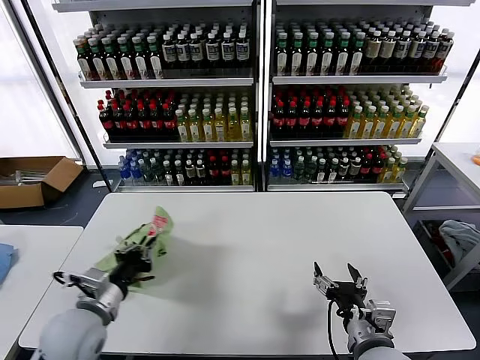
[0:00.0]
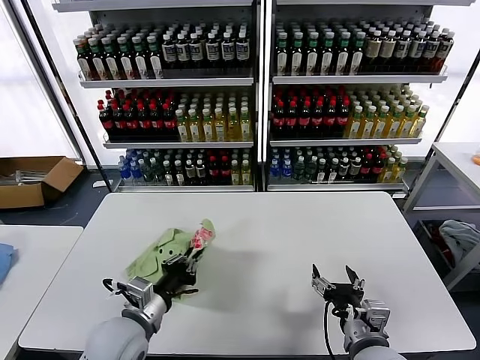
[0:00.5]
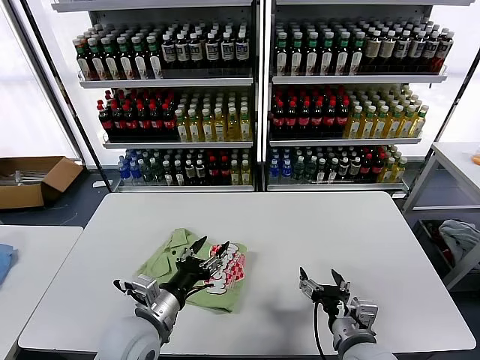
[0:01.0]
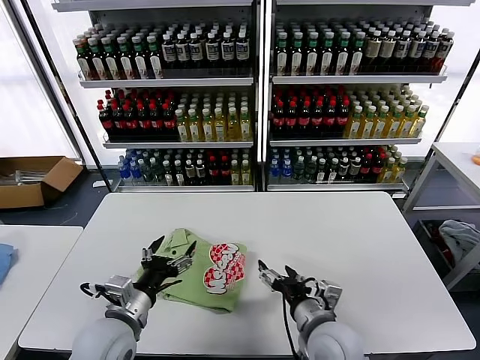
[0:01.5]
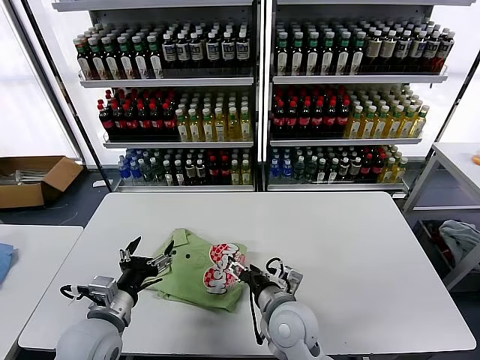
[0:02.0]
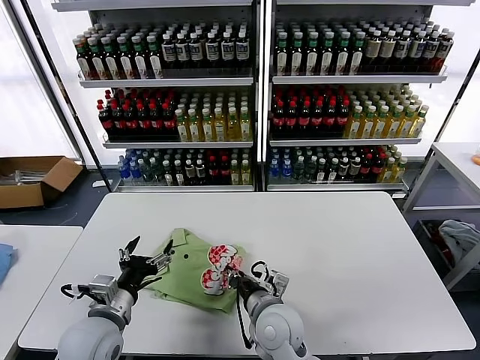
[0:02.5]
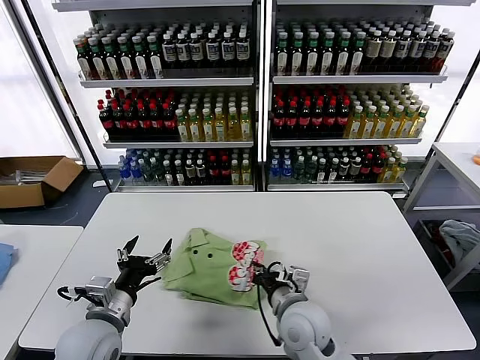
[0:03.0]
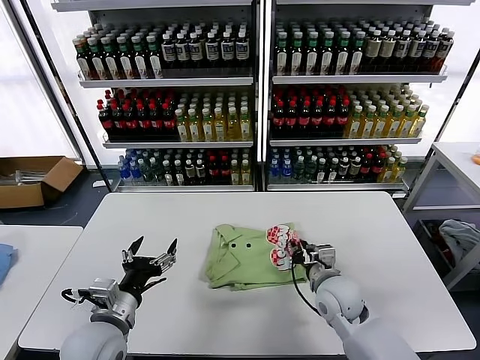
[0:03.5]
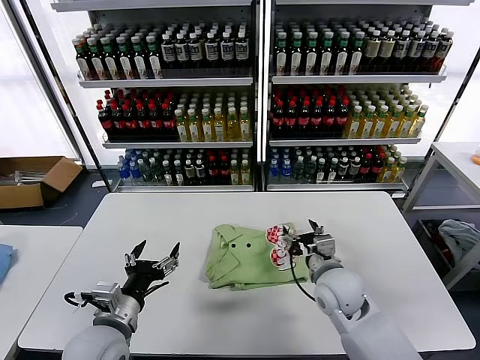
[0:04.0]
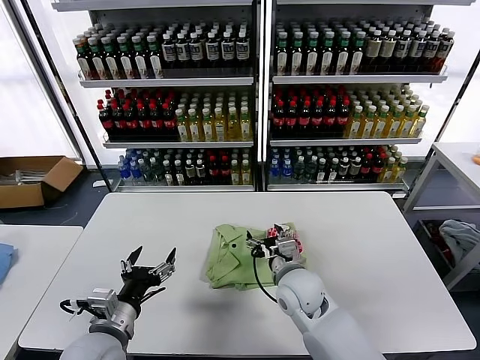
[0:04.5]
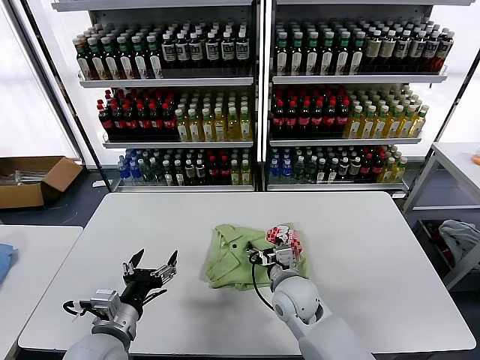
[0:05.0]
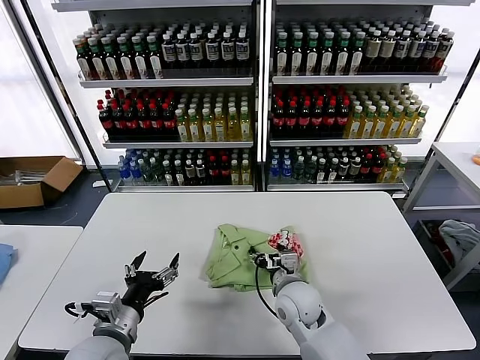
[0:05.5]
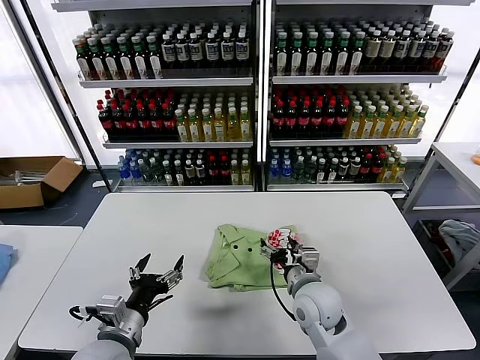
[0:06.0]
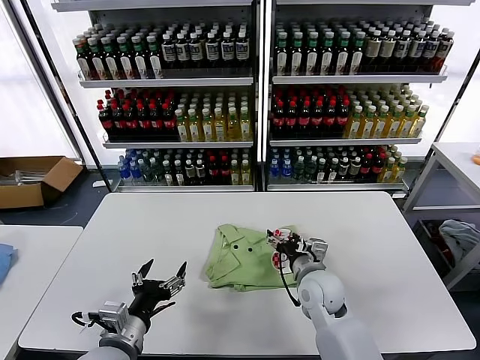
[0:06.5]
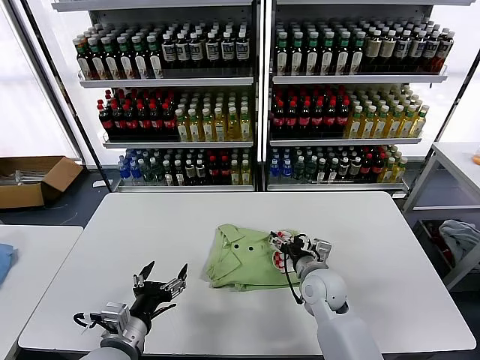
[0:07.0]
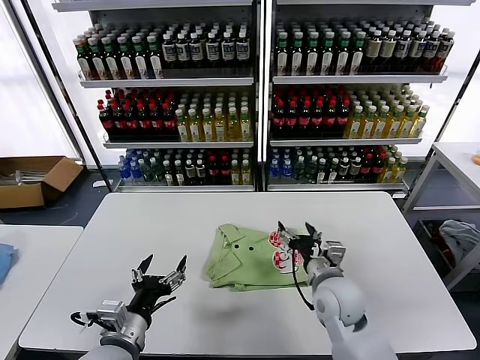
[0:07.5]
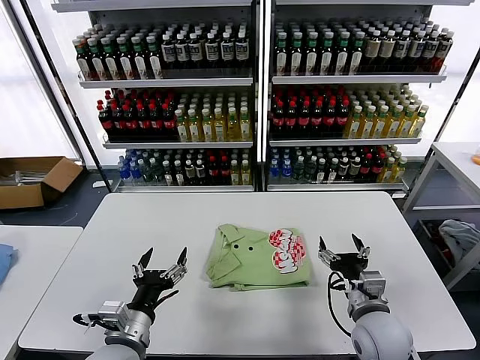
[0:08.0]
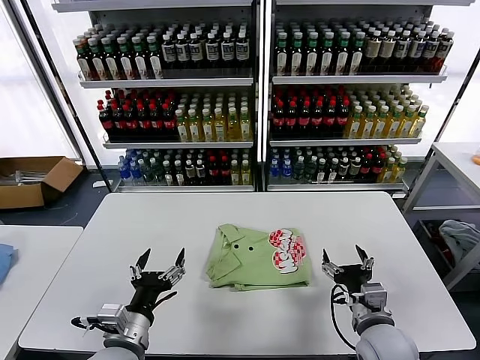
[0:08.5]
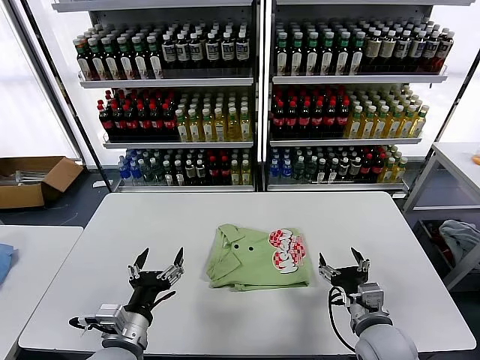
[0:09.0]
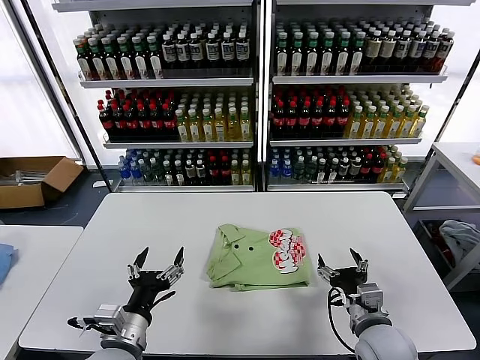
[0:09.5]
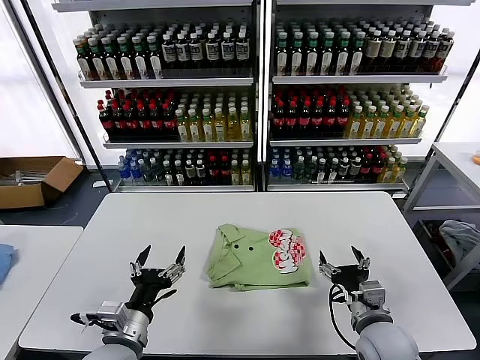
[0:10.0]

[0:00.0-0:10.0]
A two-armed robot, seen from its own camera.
Task of the whole recording: fold and organize the clothes.
Step, 0:01.0 to 0:07.0: Drag the clothes to the center of the table.
0:00.0 to 0:02.0: The left gripper opens. The right gripper moves to the left and forward, approximately 15 cm.
0:02.0 to 0:04.0: The right gripper goes roughly 10 cm to the right and forward, and closes, then reopens.
0:04.0 to 0:06.0: The right gripper travels to the left by roughly 5 cm.
0:06.0 to 0:08.0: The right gripper moves to the right and backward, approximately 10 cm.
0:08.0 to 0:10.0: The grippers make only small movements.

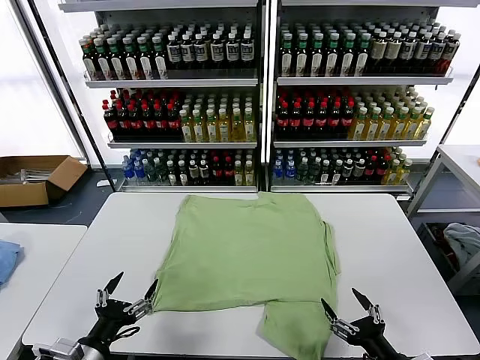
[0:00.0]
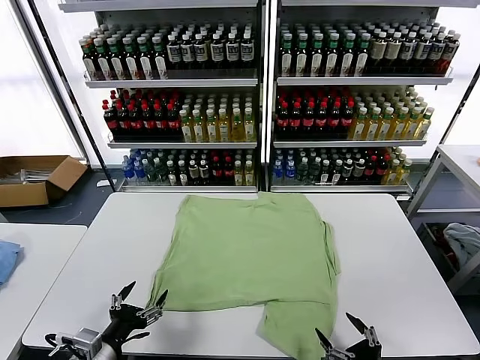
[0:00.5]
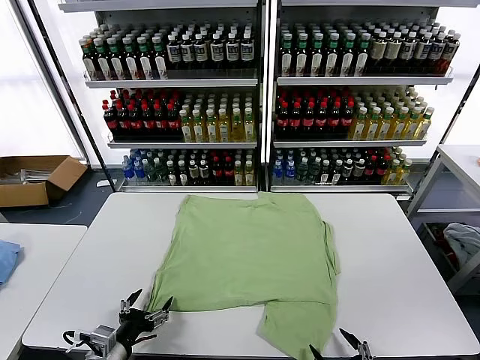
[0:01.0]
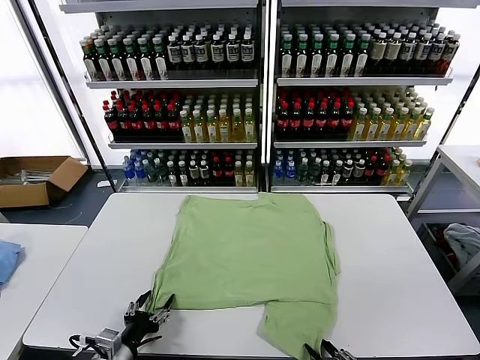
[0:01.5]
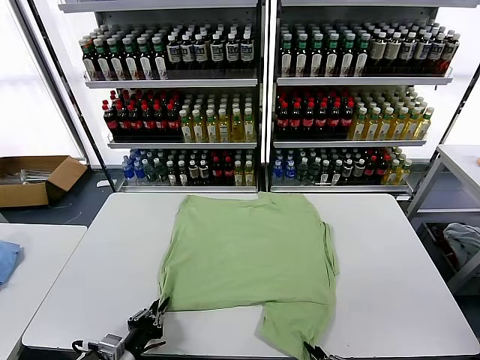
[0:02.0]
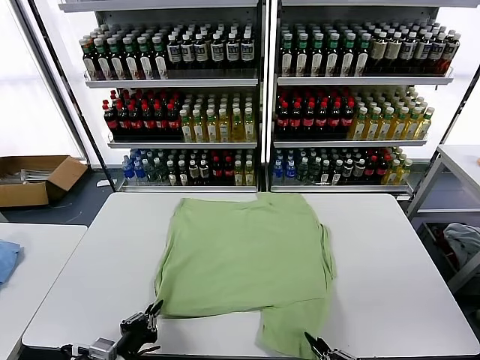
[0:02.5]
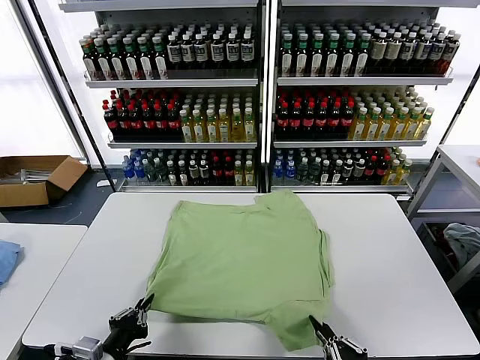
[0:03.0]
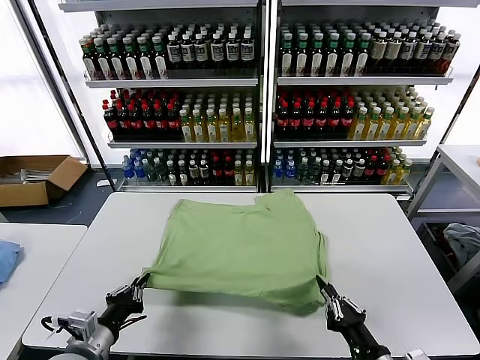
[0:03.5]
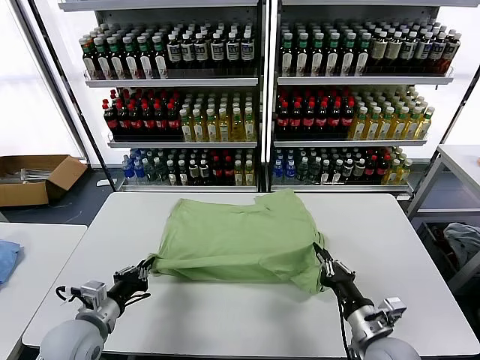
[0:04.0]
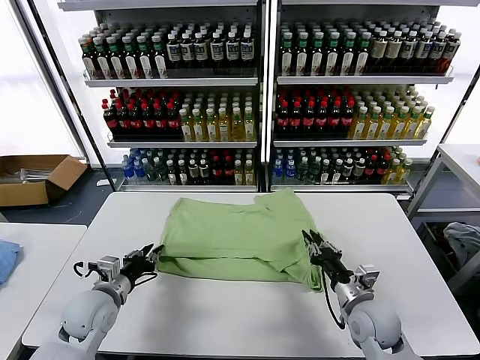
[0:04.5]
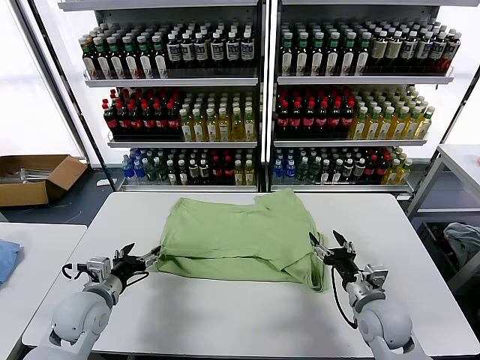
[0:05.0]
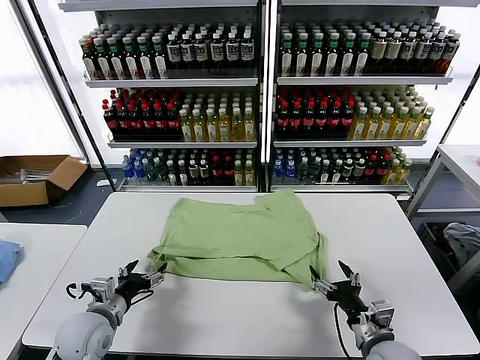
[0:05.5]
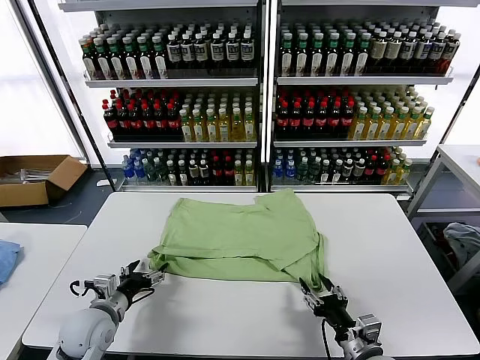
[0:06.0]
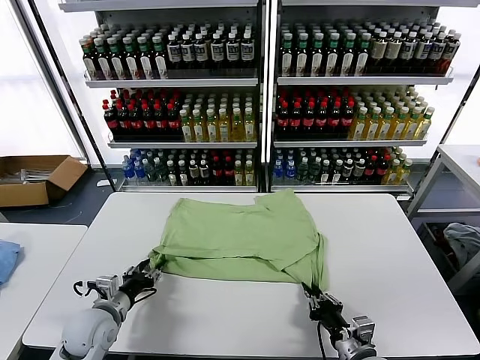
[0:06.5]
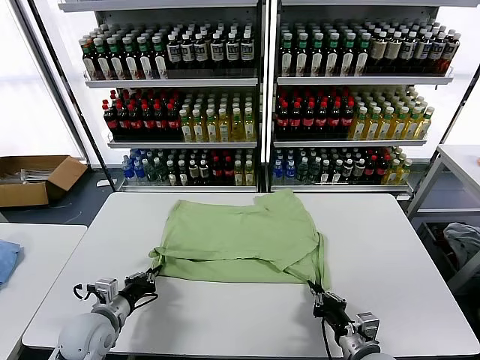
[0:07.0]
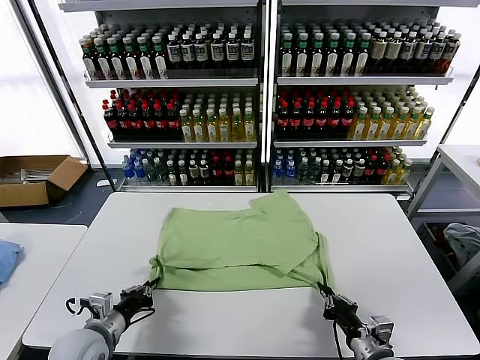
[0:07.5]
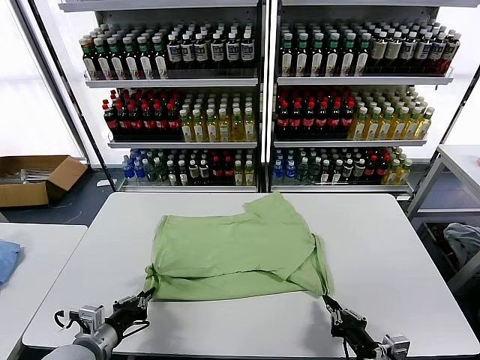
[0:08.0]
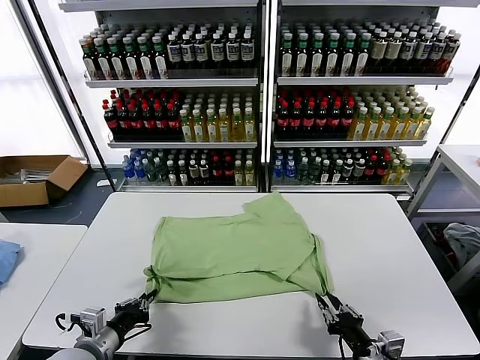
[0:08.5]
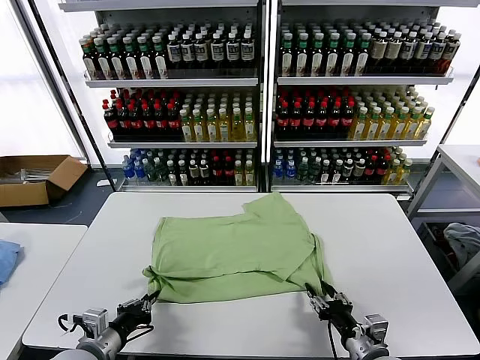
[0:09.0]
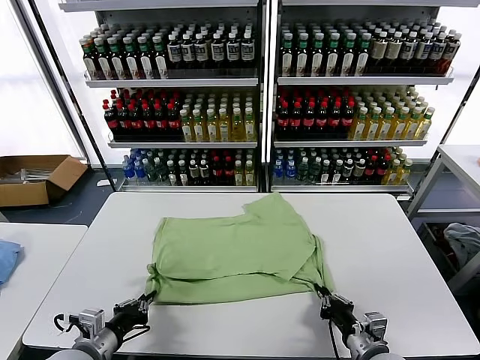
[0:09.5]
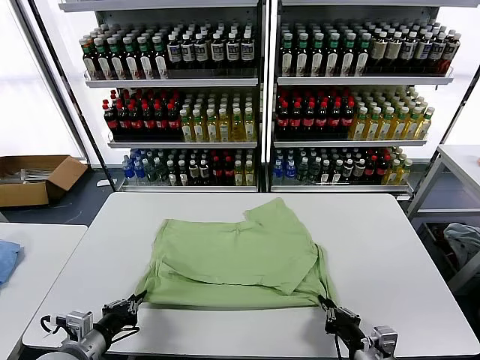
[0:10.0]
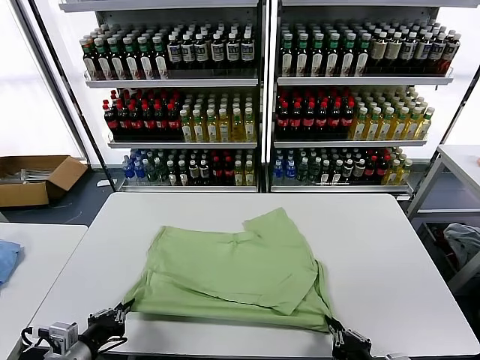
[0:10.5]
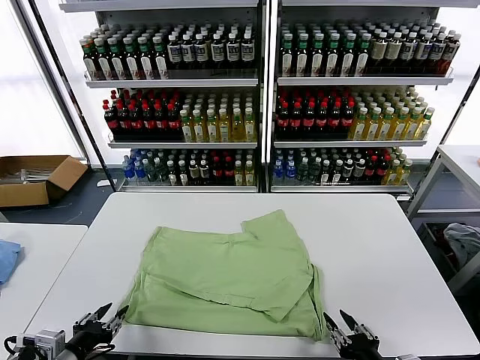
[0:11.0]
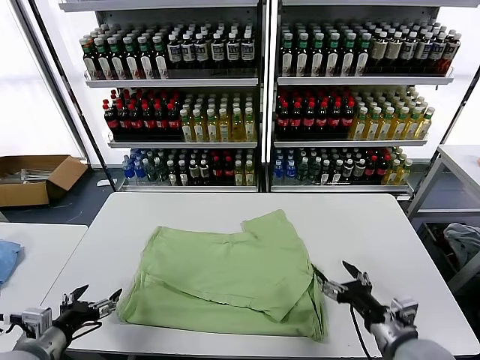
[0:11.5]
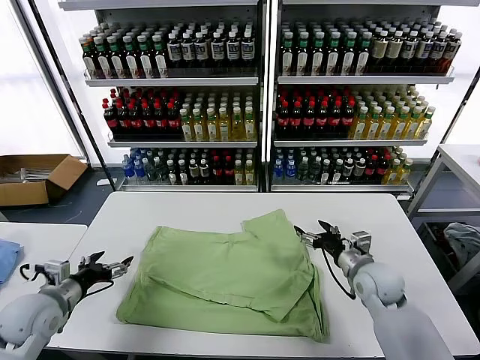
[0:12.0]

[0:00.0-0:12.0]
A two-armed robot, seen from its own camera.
Task of the whole recording: fold and organize the clothes.
Step, 0:00.0 to 0:02.0: use both grippers simultaneously to clamp the lower edge of the clothing fabric.
Step, 0:02.5 to 0:04.5: use both grippers to drag the lower edge of the fabric forward and fold it over the upper edge.
Step, 0:05.0 to 0:11.0: Drag the clothes downward with both gripper.
0:02.0 to 0:04.0: The left gripper heads forward and upward, covering about 10 cm, while the right gripper shifts some 15 cm forward.
0:04.0 to 0:06.0: The left gripper moves some 5 cm, and opens its fingers. The right gripper travels forward and back again, roughly 10 cm each way, and opens its fingers.
0:06.0 to 0:08.0: The left gripper goes roughly 10 cm backward, and closes. The right gripper ends up some 5 cm from where it was, and closes up.
0:08.0 to 0:10.0: The right gripper opens and closes again.
0:10.0 to 0:12.0: The right gripper goes roughly 20 cm forward, and opens up. Meanwhile the left gripper is displaced forward and to the left by about 15 cm, and opens.

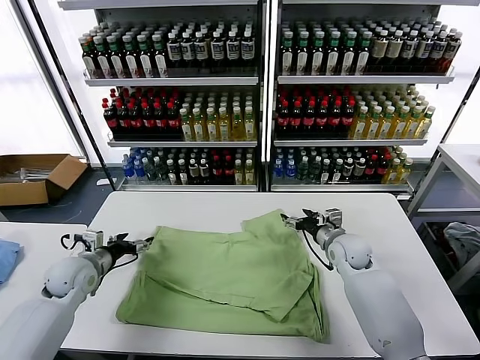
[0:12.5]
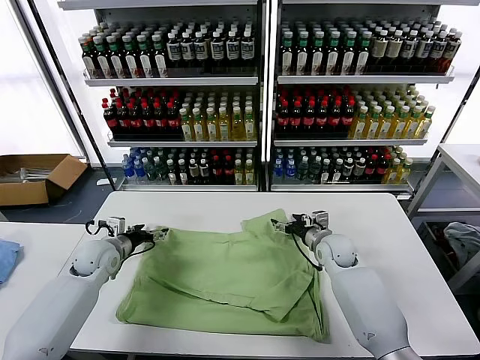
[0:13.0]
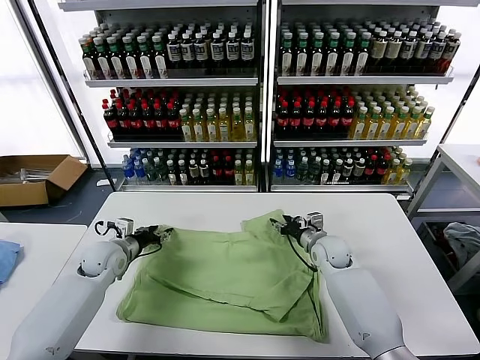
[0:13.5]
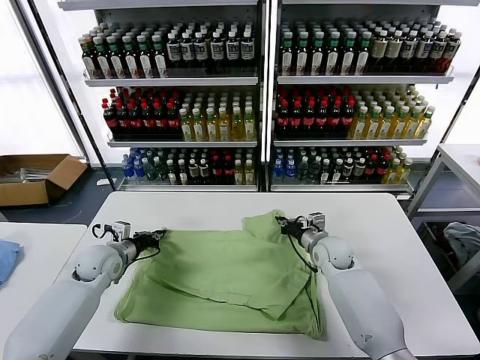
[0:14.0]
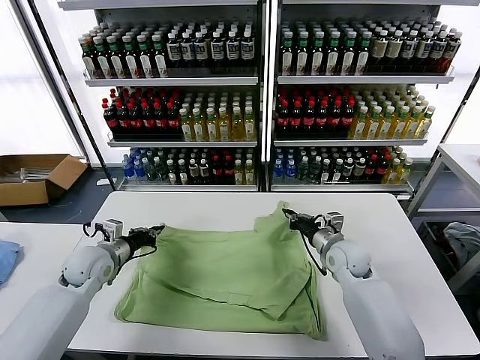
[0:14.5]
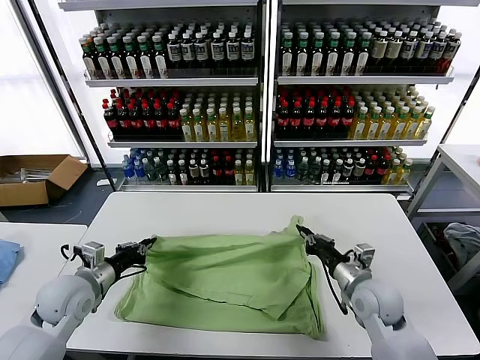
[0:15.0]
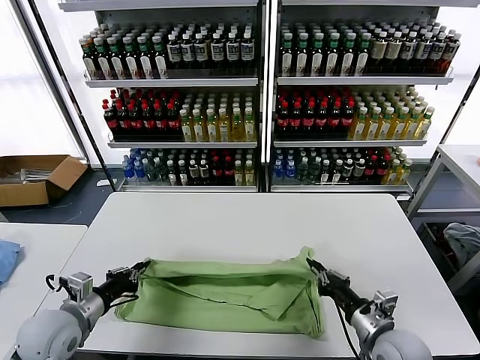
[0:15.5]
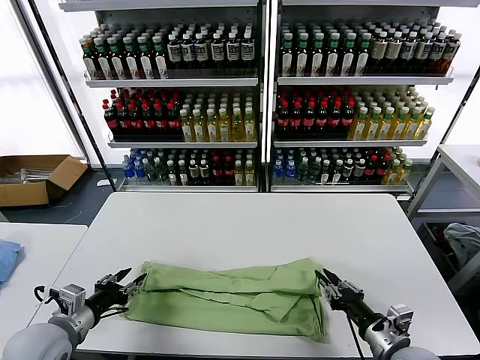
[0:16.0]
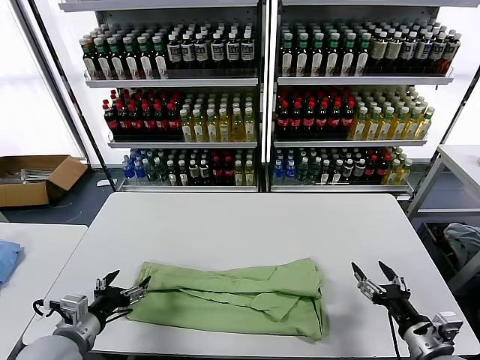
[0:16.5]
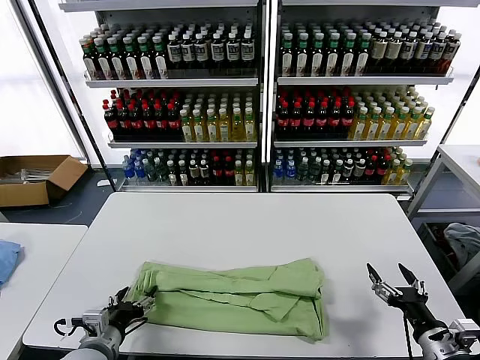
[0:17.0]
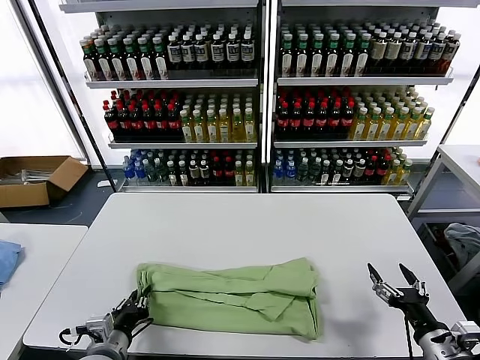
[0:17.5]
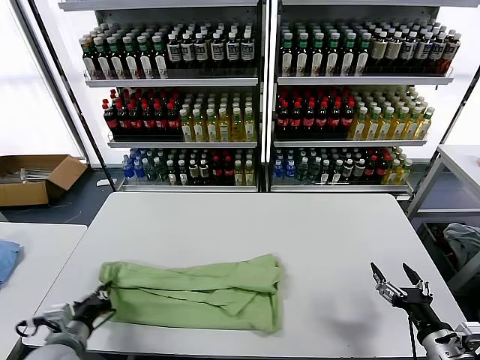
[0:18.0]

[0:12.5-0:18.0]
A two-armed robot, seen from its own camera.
Task of the whole recording: fold and organize the clothes.
Step, 0:14.5 to 0:16.0: use both grippers to drag the upper edge of the fabric backward and fold it over the lower edge.
Step, 0:16.5 to 0:17.5: use the left gripper to clamp the left edge of the fabric.
0:12.5 to 0:14.5: The left gripper closes up. The right gripper closes.
0:14.5 to 0:16.0: The grippers both shift backward by some 20 cm. The left gripper opens.
0:16.0 to 0:18.0: The right gripper shifts roughly 10 cm to the right, and opens, while the left gripper moves roughly 10 cm to the right and comes back, and closes.
